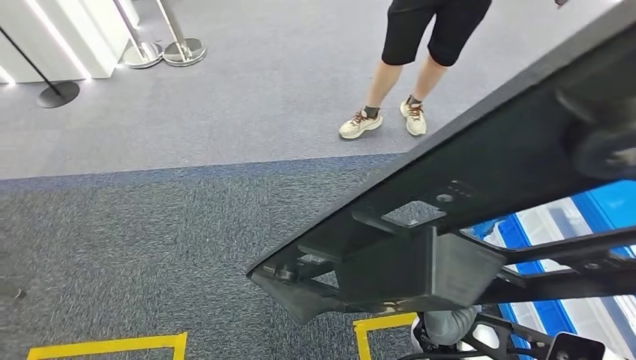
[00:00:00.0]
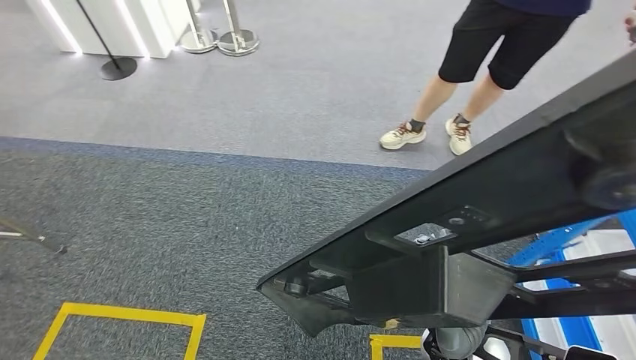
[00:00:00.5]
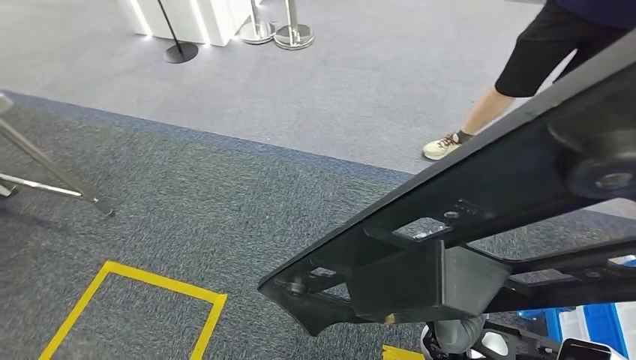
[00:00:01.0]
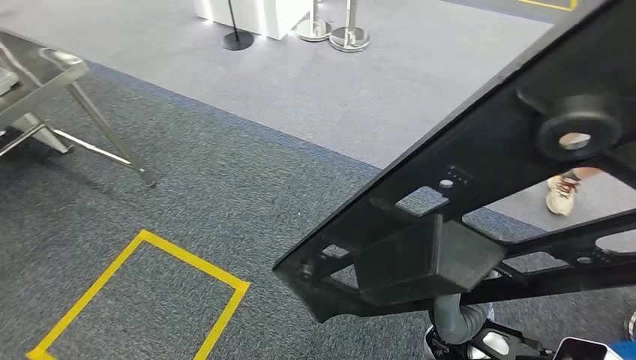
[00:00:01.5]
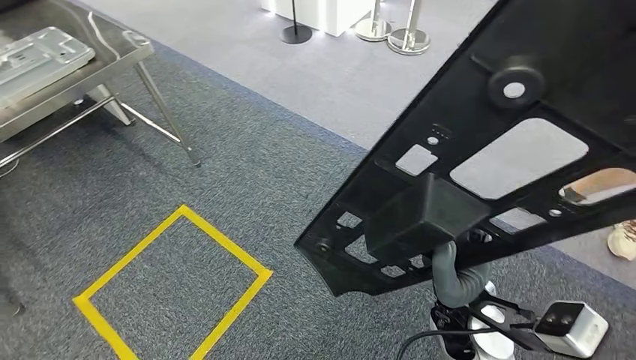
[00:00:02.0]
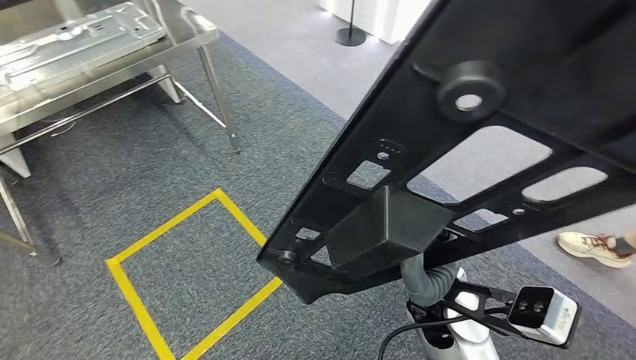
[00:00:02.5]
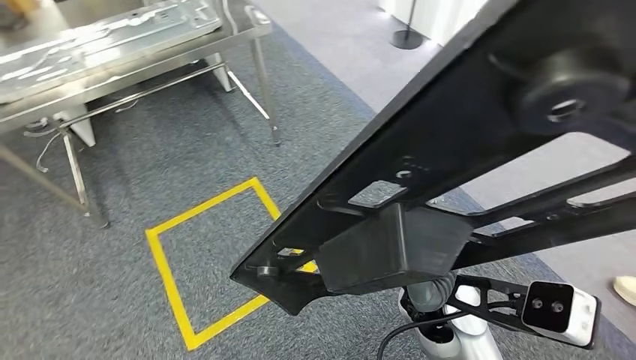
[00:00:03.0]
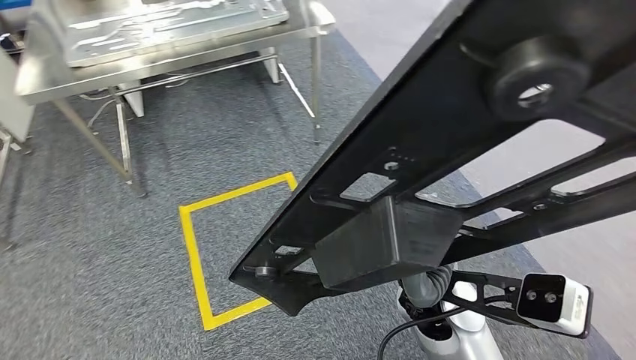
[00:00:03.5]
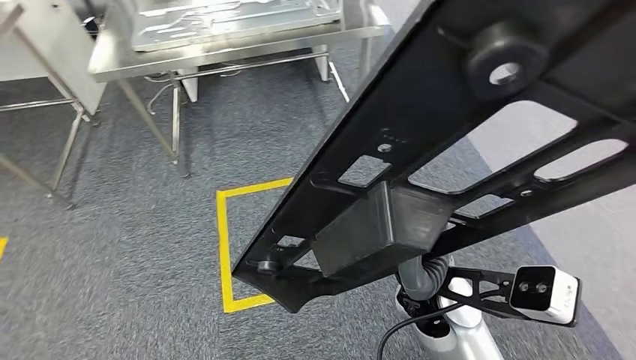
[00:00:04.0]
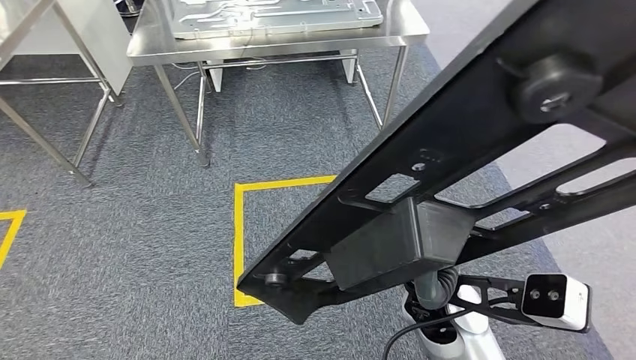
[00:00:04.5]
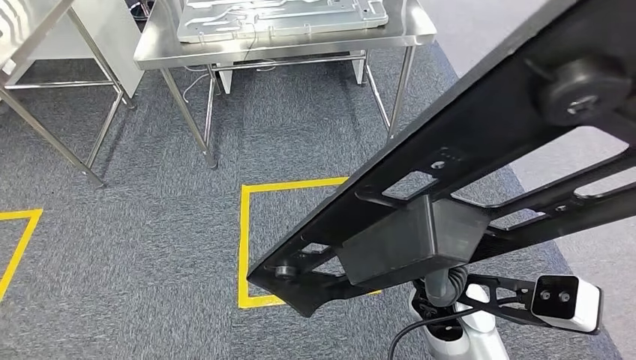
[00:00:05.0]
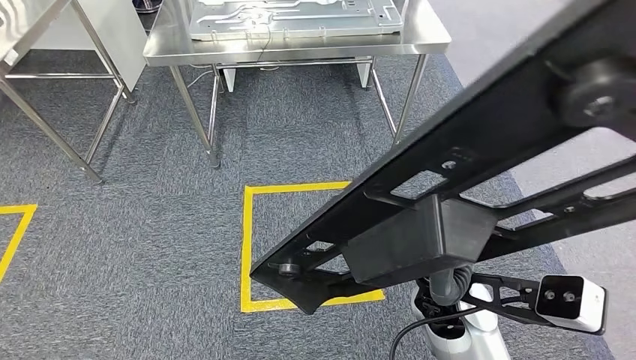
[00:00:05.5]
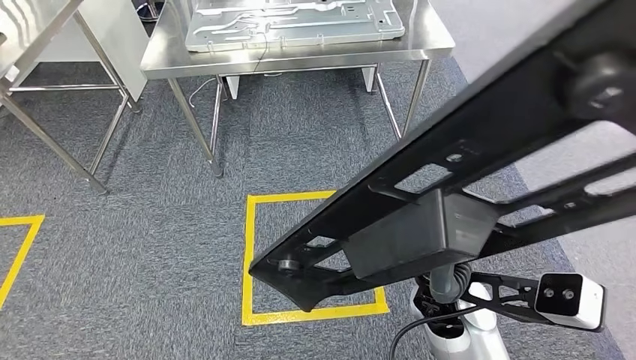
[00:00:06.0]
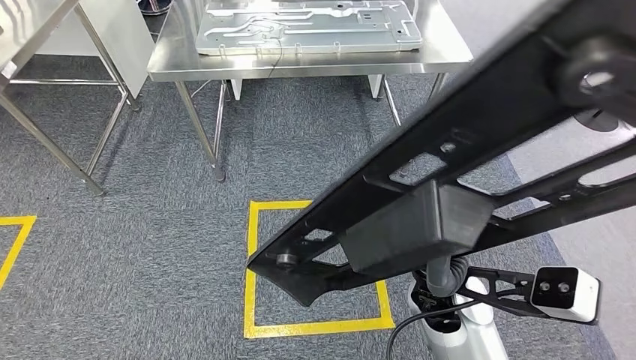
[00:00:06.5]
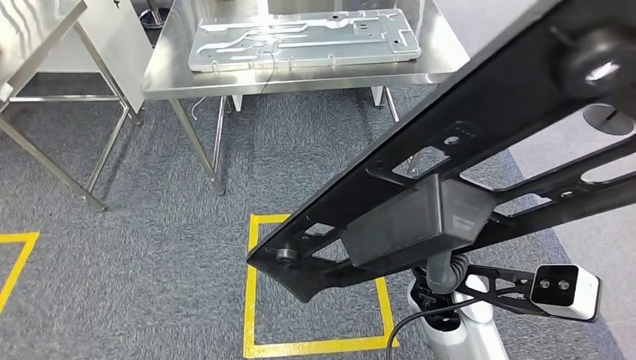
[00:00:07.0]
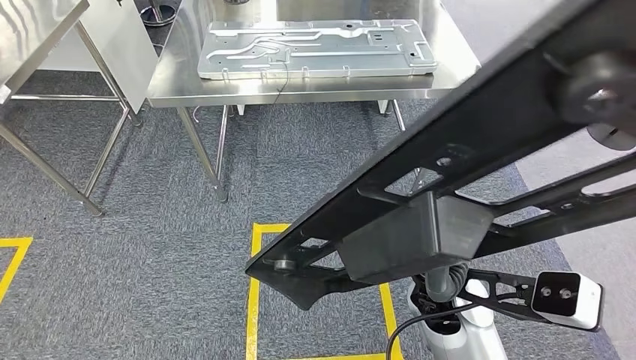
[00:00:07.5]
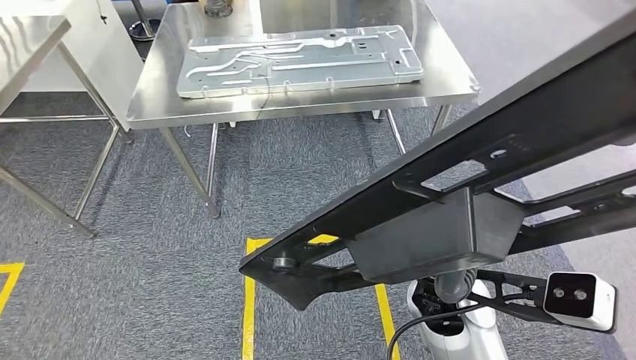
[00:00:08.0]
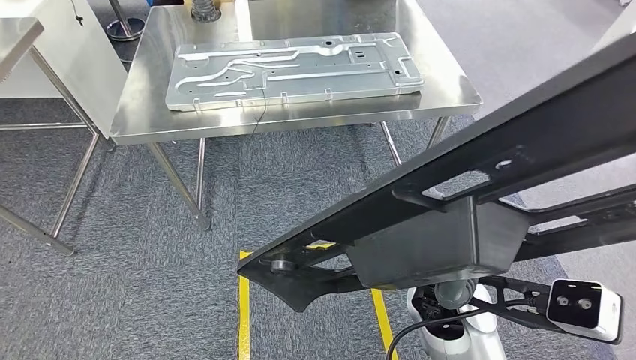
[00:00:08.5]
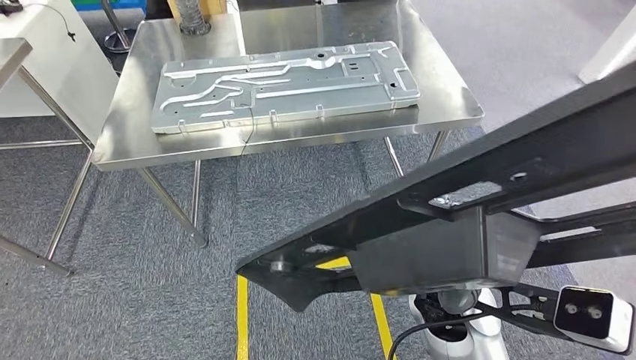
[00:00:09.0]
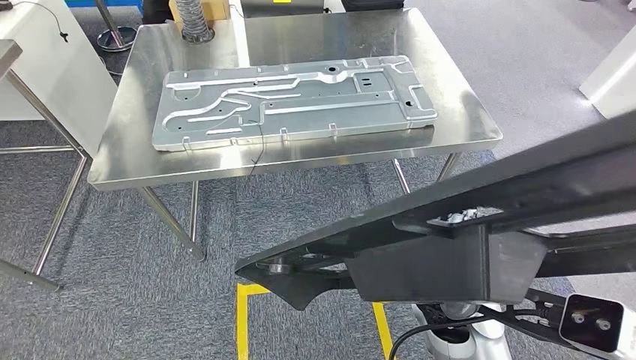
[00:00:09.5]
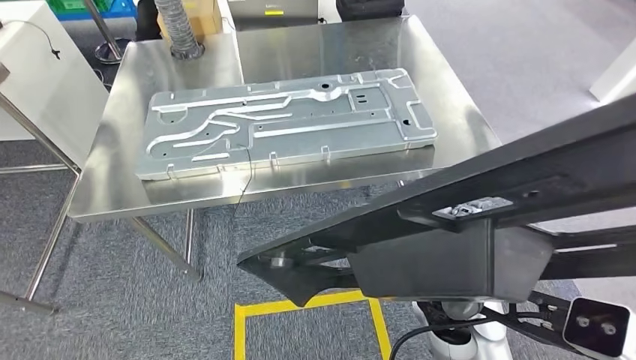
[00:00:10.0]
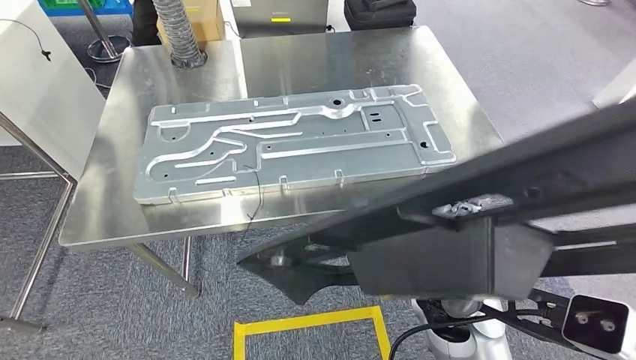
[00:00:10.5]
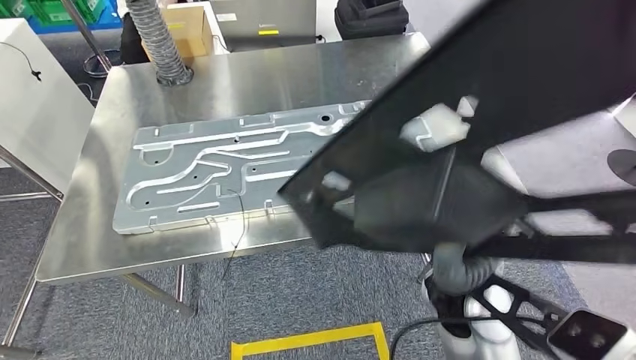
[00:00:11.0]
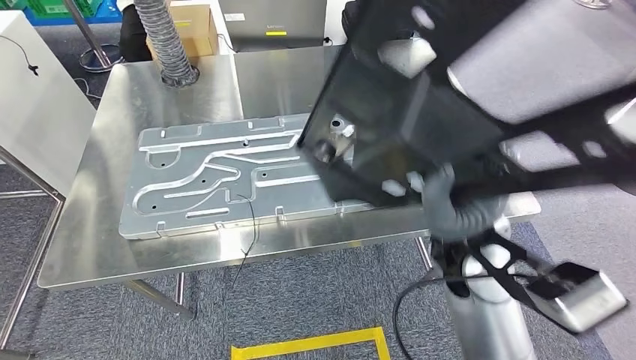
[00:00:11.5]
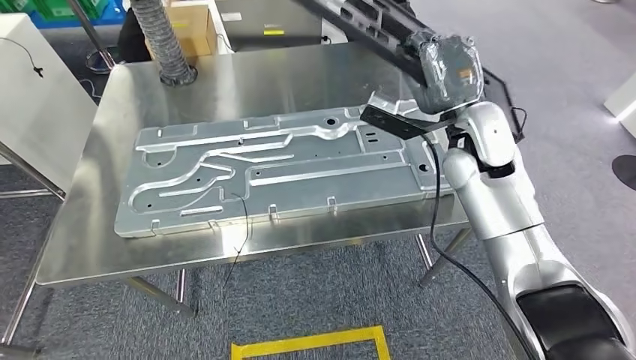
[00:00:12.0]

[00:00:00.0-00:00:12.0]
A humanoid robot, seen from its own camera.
Step, 00:00:00.0 to 00:00:09.0: Move the large material to the workbench.

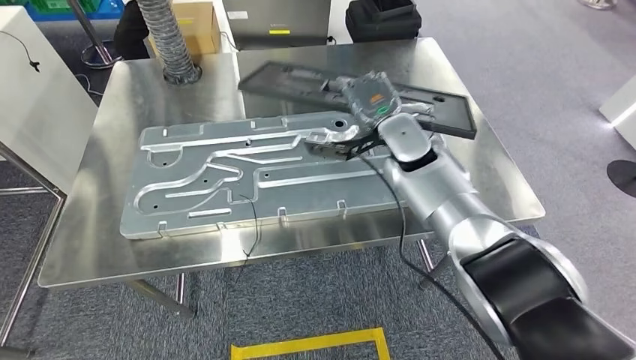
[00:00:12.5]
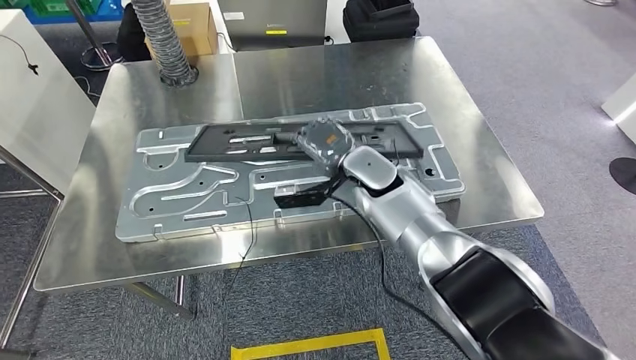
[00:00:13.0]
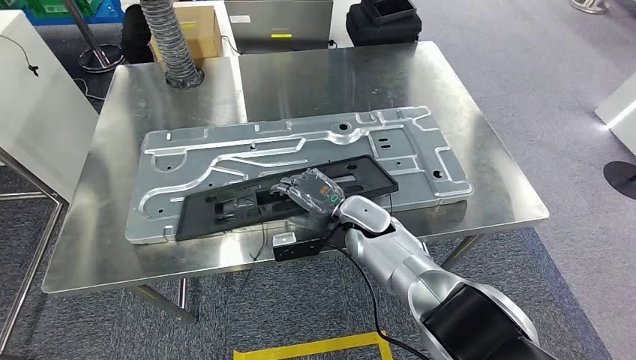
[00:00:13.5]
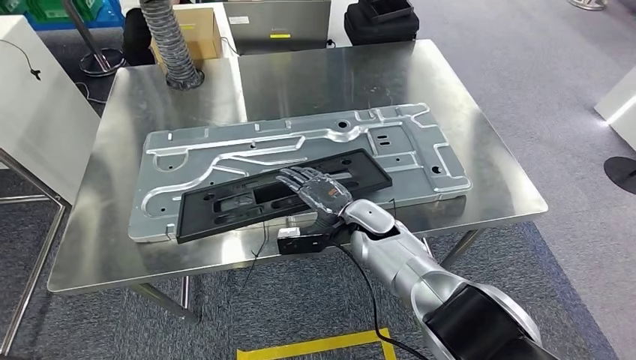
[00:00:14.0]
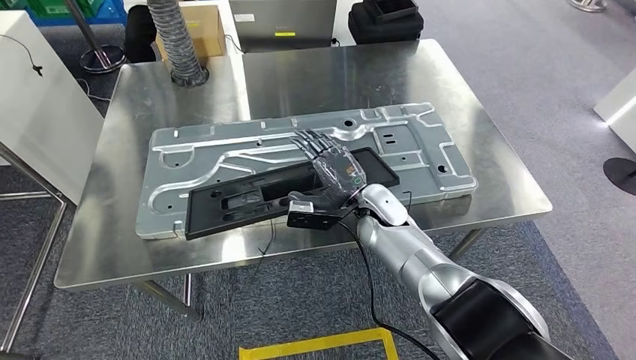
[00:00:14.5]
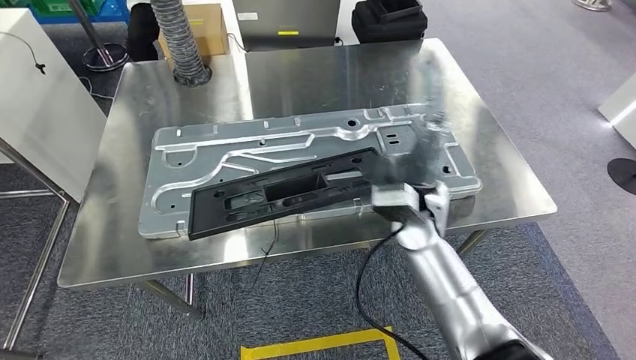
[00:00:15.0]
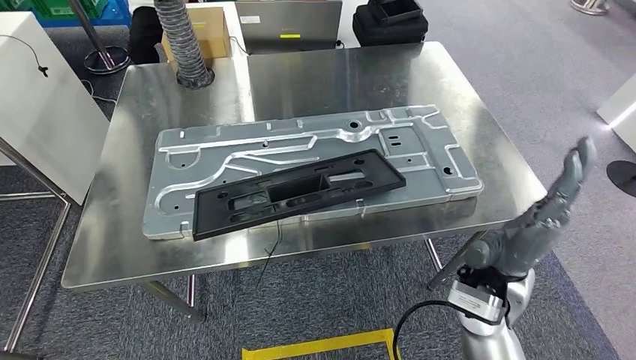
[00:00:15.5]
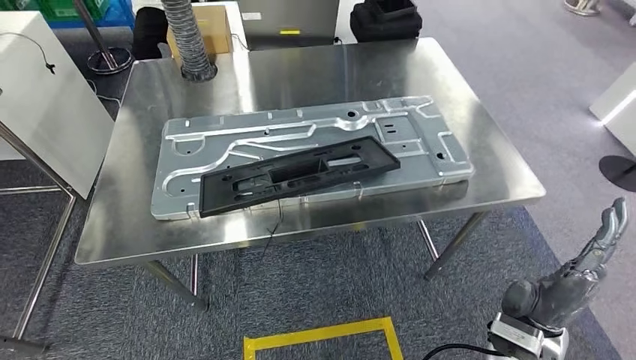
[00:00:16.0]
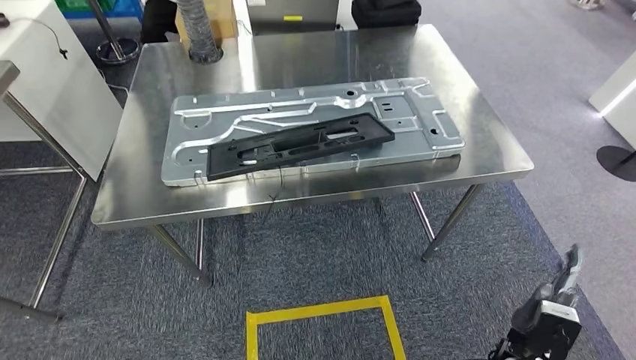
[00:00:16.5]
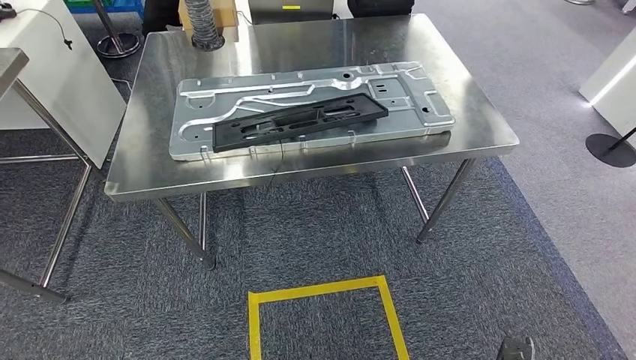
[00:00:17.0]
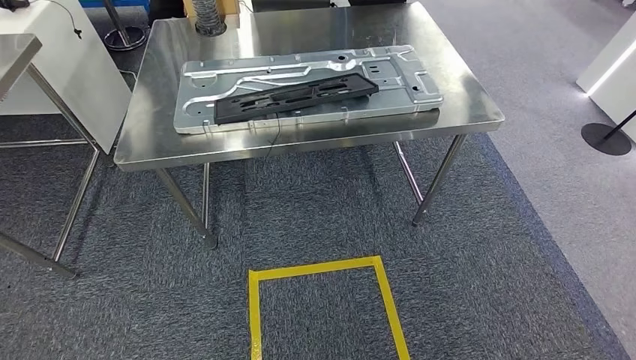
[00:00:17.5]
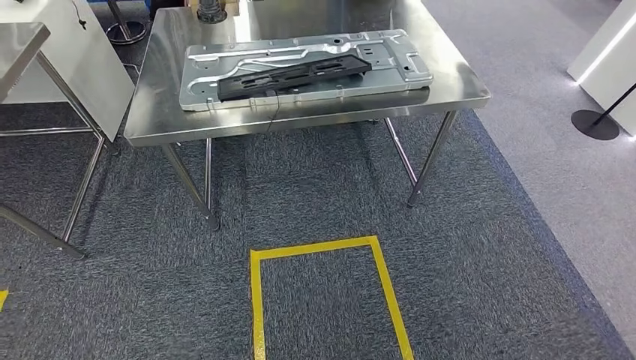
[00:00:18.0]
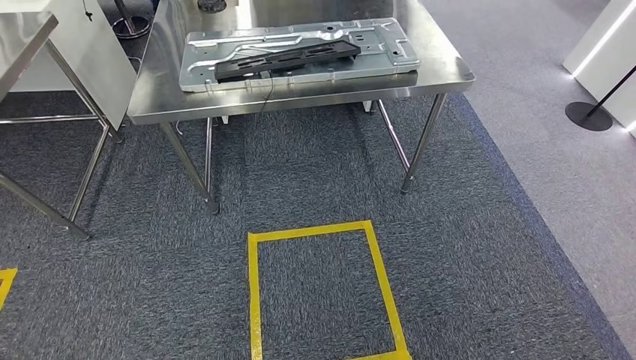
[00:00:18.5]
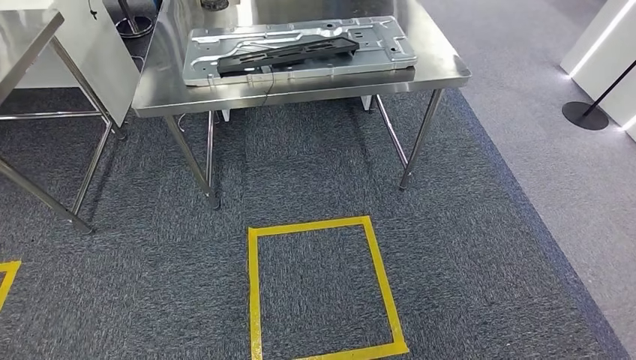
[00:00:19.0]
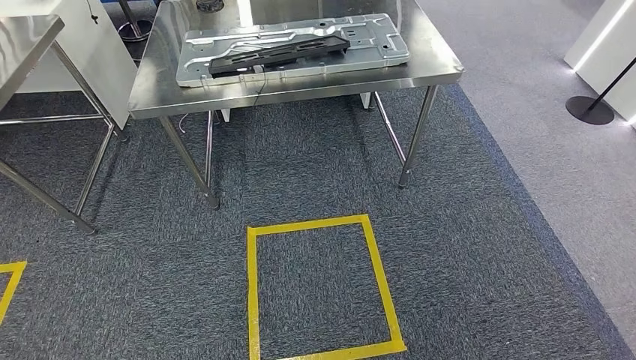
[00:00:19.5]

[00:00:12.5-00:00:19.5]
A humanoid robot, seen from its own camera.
Step, 00:00:12.5 to 00:00:16.5: Insert the large material into the corresponding slot on the workbench.
Step, 00:00:17.5 to 00:00:19.5: Return to the initial position at the shelf.

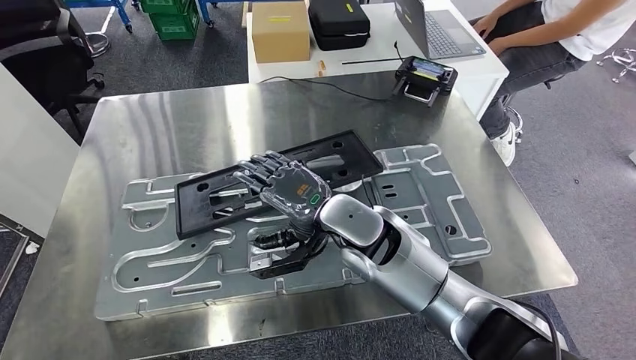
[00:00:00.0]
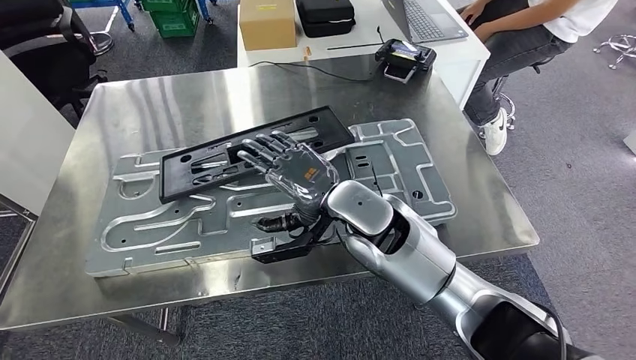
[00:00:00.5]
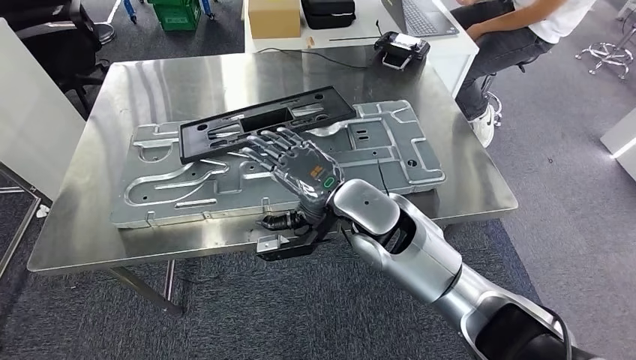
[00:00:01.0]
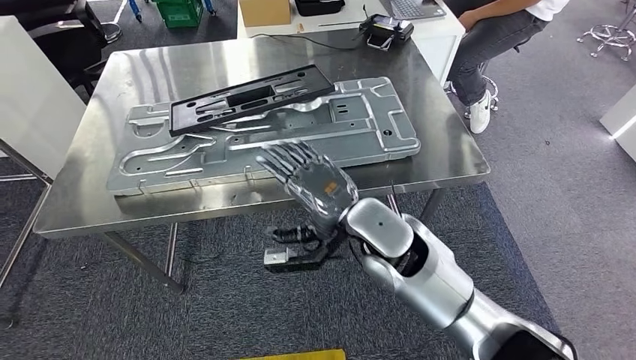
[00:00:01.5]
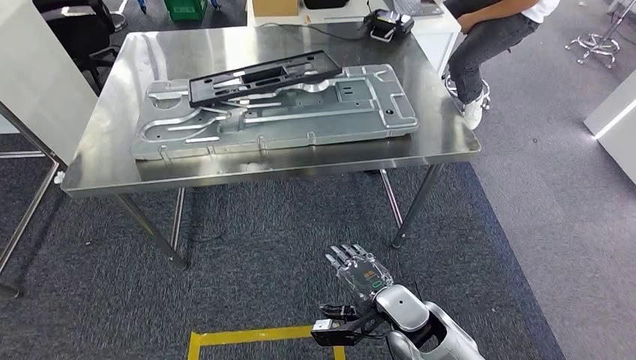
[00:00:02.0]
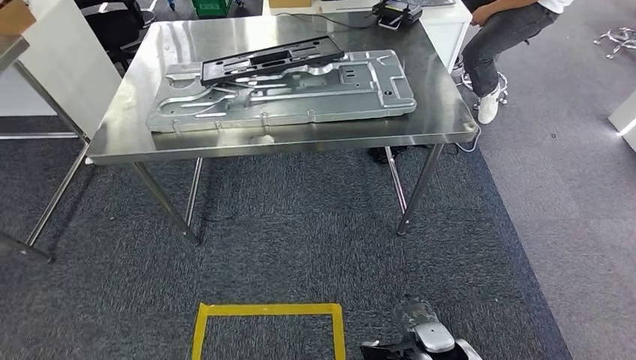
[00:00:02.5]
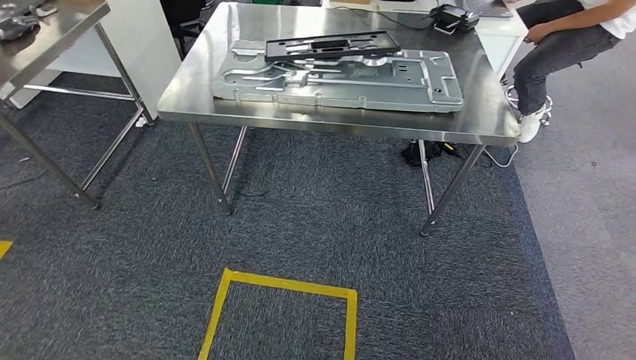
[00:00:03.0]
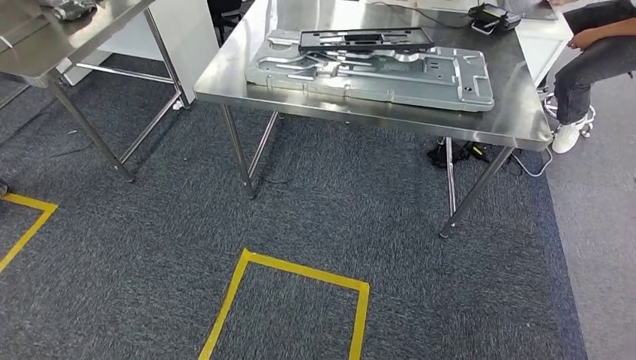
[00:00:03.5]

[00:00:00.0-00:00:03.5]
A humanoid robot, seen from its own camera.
Step, 00:00:00.0 to 00:00:02.0: Insert the large material into the corresponding slot on the workbench.
